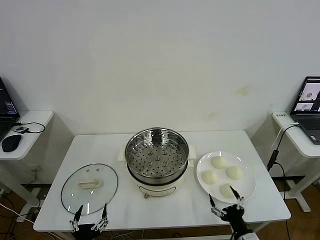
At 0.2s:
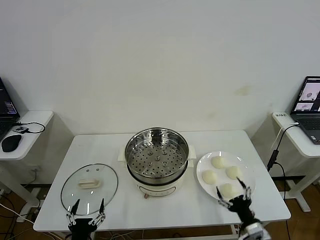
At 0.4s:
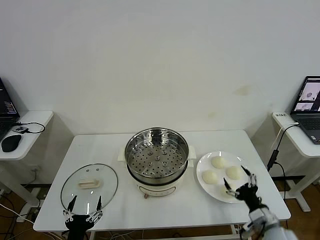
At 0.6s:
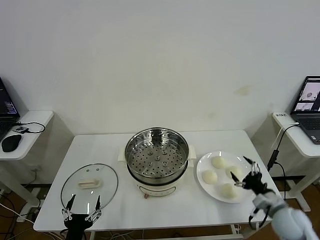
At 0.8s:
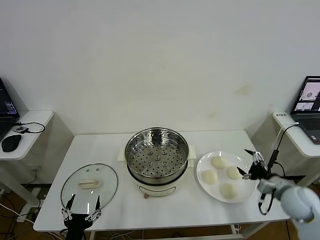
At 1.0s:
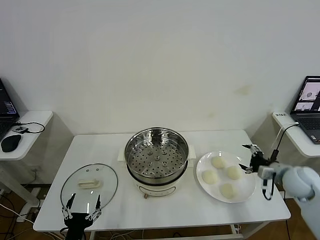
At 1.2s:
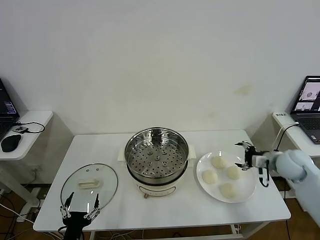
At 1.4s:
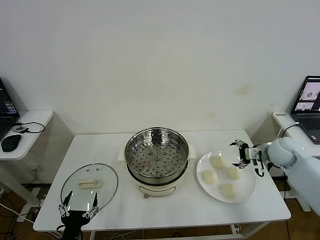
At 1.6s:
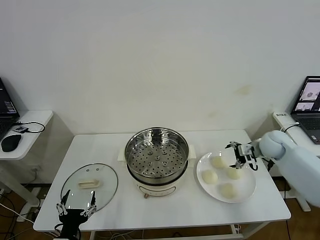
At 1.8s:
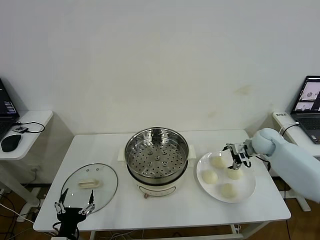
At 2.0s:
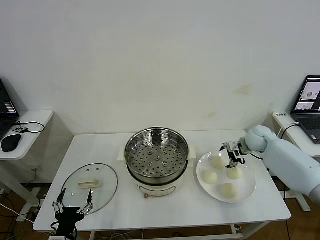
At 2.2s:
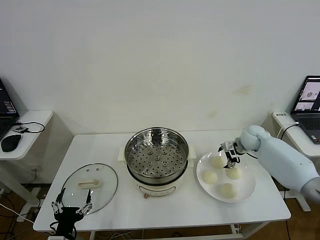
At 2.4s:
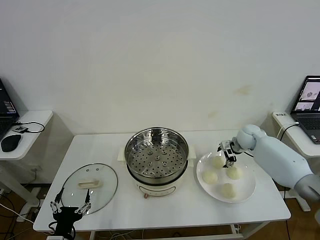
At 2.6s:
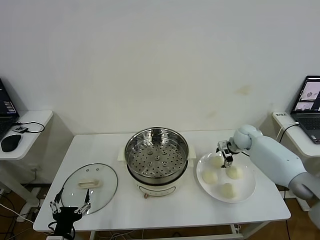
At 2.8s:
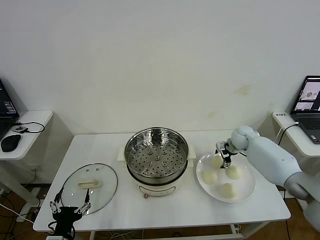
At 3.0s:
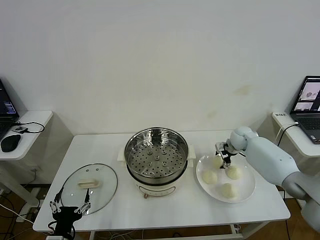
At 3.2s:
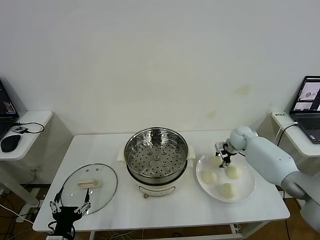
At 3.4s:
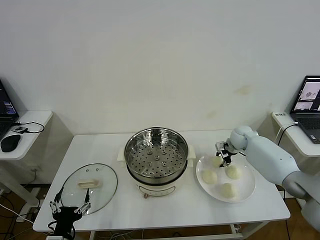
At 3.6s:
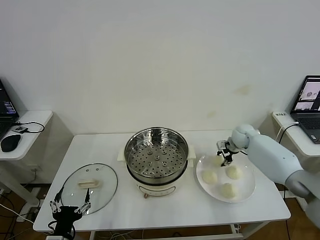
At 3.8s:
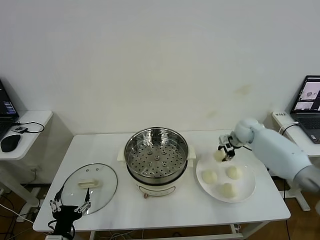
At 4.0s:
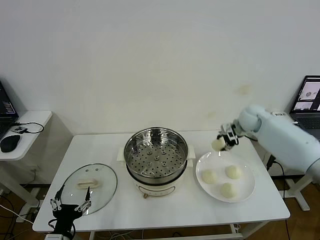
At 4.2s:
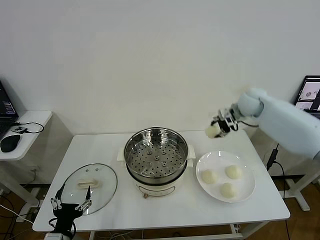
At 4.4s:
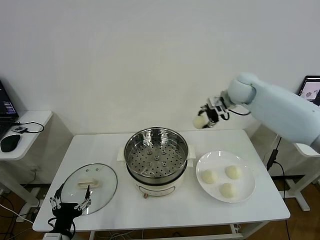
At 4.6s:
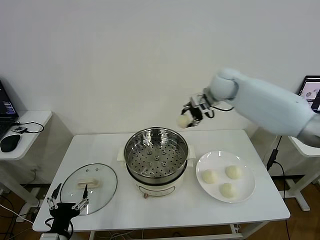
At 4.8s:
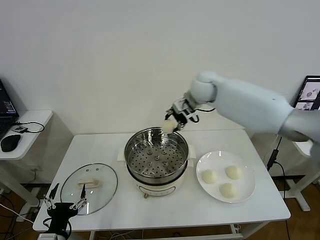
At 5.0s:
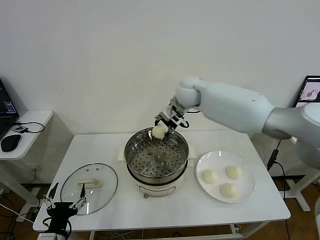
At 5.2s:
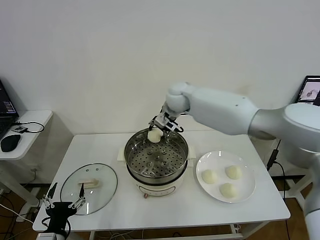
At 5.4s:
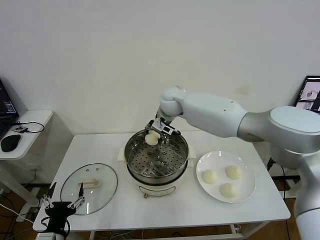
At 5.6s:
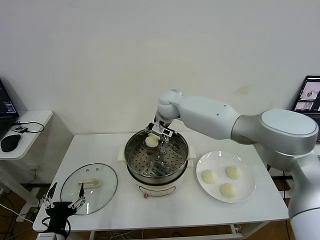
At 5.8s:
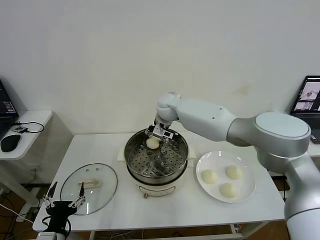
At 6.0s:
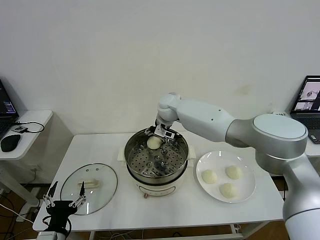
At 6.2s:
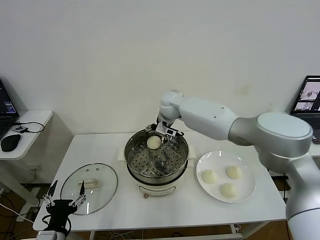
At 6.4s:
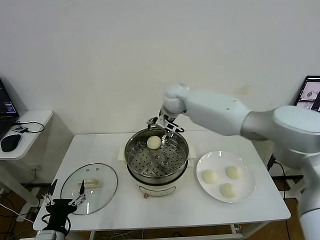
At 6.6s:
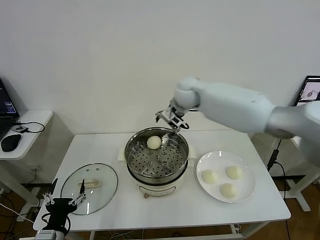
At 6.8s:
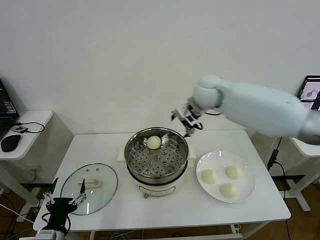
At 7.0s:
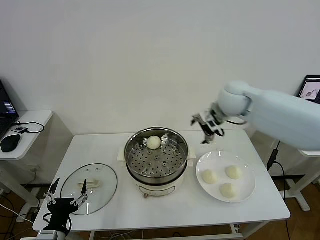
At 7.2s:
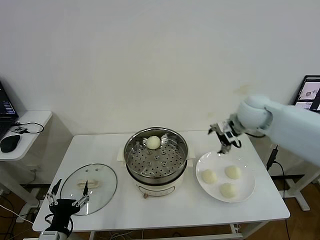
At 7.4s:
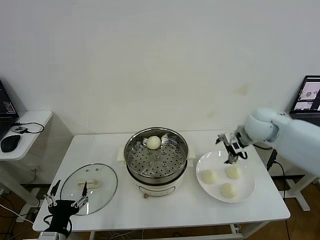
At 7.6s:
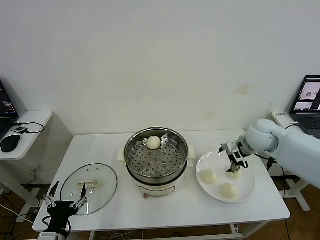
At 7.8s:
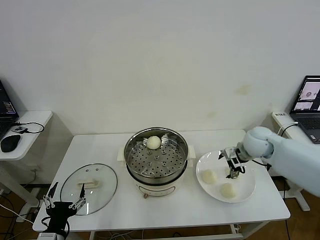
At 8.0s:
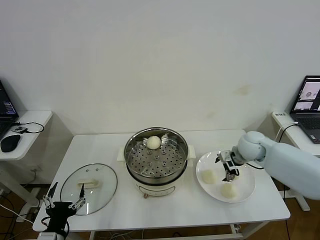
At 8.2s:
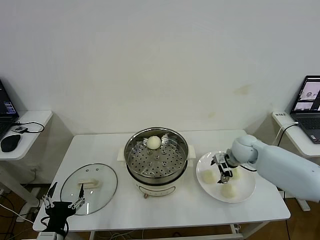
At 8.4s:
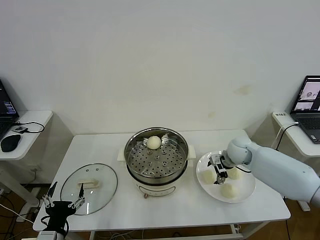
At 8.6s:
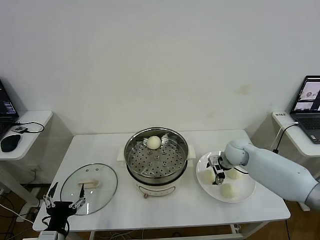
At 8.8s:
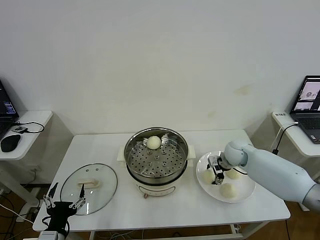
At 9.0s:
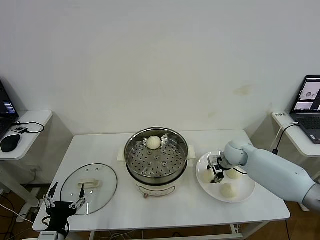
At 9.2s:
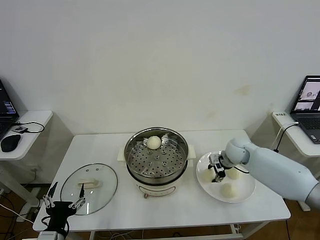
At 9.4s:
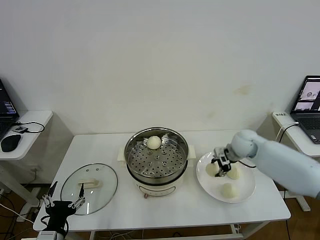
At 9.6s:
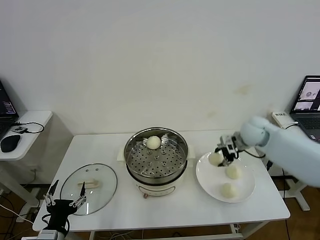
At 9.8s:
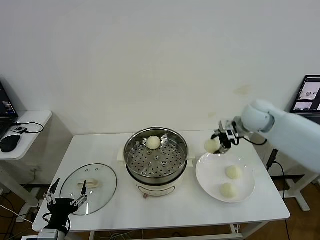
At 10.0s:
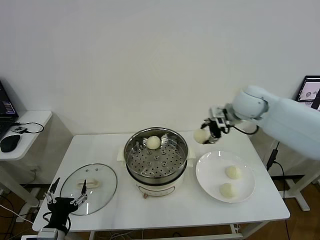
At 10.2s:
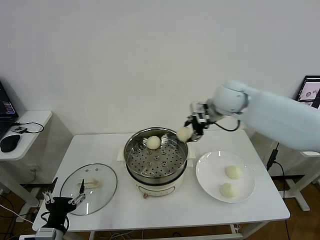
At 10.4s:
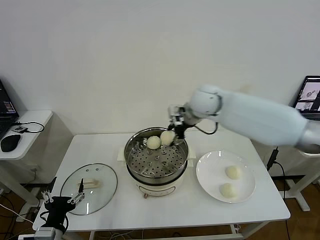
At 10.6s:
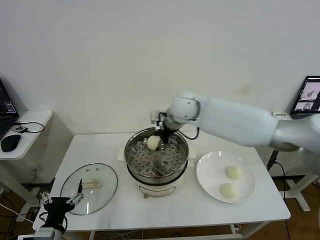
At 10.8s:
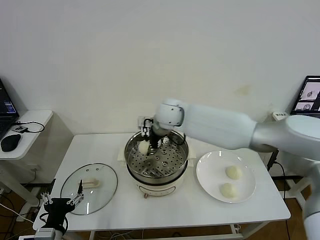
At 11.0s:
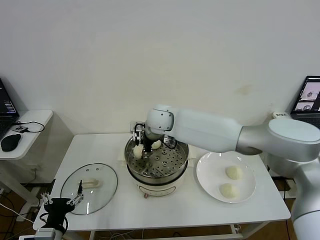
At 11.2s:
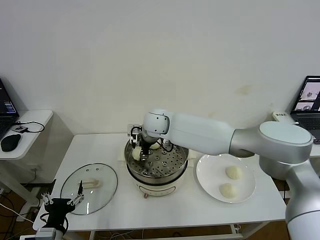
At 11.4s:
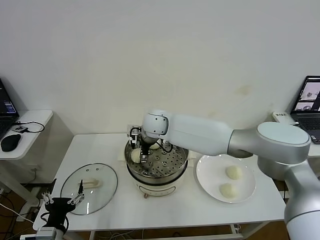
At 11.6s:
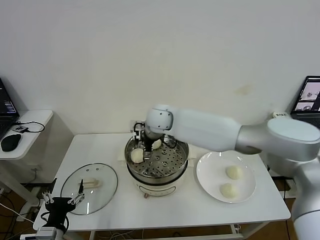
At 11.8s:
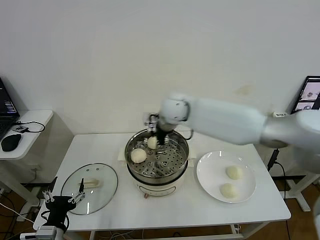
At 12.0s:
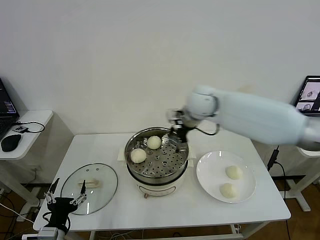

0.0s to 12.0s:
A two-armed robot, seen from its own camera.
Step, 0.0s to 3.2s: Grasp the baozi in the plate with right gripper.
Step, 3.4s to 6.0s: Place the baozi on the steamer with right gripper.
Step, 6.2s to 9.0s: Grasp the baozi in the plate with right gripper.
Step, 9.2s to 11.4s: Place the baozi on the steamer with right gripper.
1.6s to 3.0s: The right gripper travels forward, to the left and downward by about 10 cm, and closes.
3.0s to 4.4s: The right gripper shifts roughly 25 cm upward and to the left.
4.4s to 6.0s: The right gripper is displaced to the left and downward by some 20 cm, and opens up.
6.0s to 7.6s: The right gripper goes about 30 cm to the right and backward.
7.6s to 9.0s: The right gripper shifts some 10 cm downward, and closes its fingers.
9.0s to 10.4s: The right gripper goes approximately 30 cm upward and to the left.
10.4s to 12.0s: The right gripper is displaced to the right by about 5 cm, and opens up.

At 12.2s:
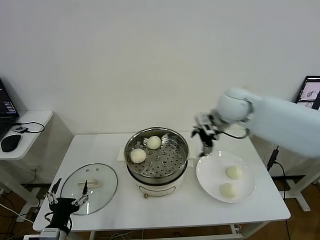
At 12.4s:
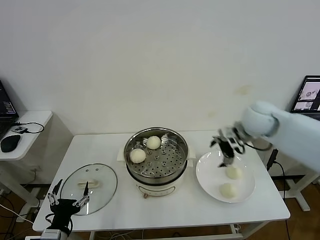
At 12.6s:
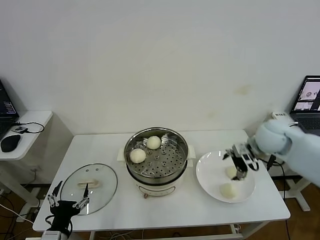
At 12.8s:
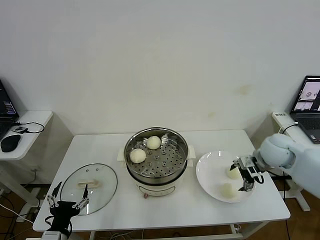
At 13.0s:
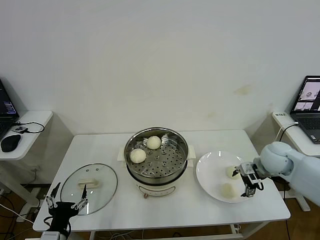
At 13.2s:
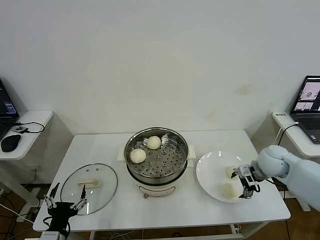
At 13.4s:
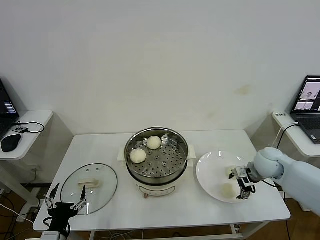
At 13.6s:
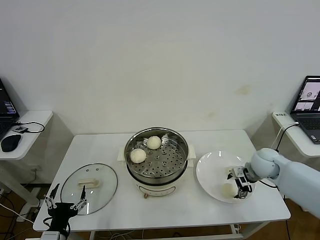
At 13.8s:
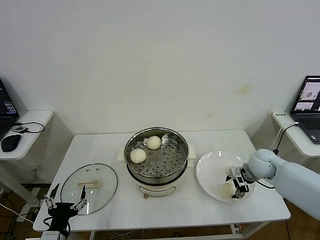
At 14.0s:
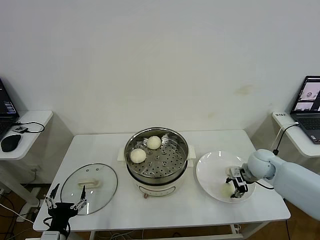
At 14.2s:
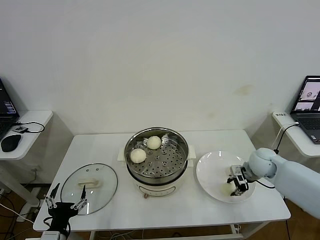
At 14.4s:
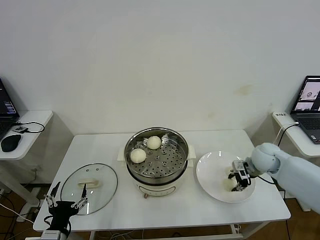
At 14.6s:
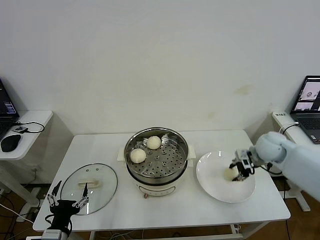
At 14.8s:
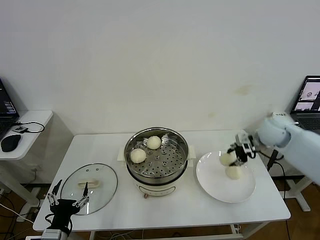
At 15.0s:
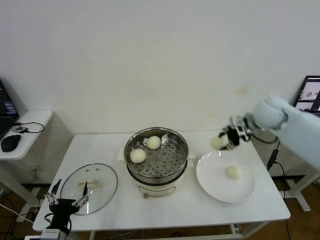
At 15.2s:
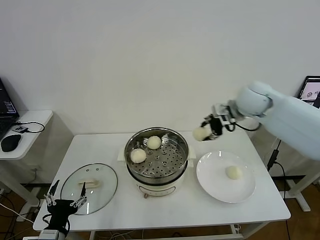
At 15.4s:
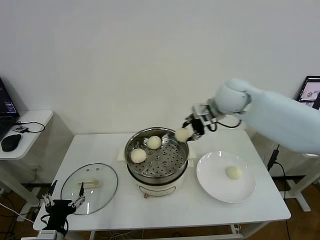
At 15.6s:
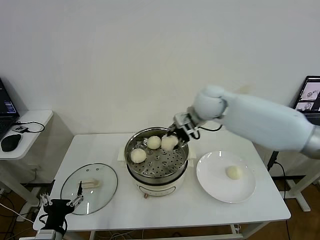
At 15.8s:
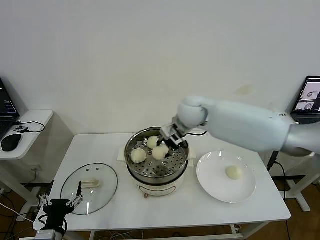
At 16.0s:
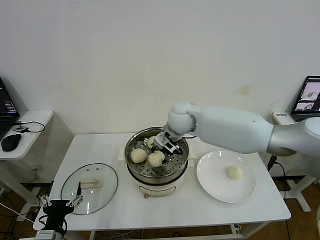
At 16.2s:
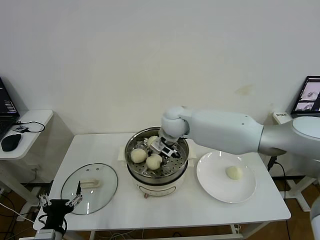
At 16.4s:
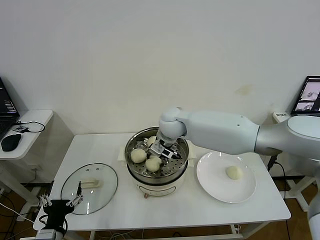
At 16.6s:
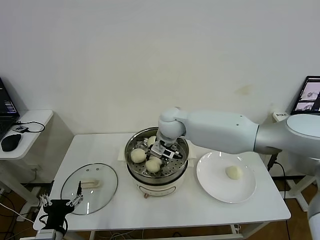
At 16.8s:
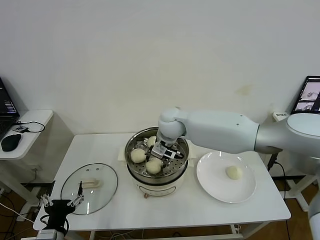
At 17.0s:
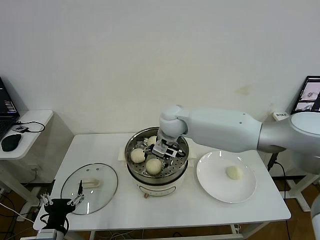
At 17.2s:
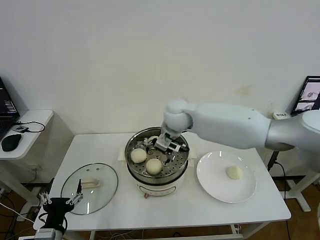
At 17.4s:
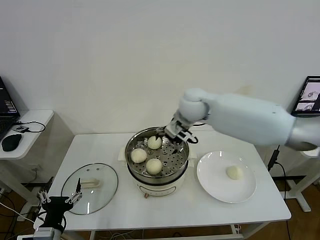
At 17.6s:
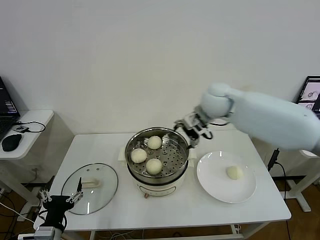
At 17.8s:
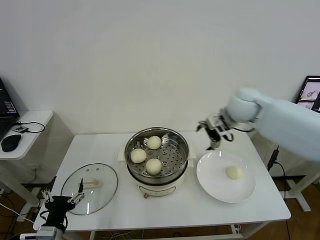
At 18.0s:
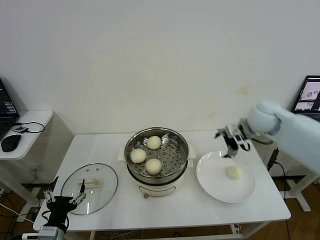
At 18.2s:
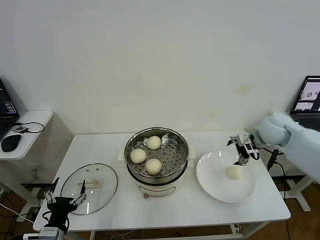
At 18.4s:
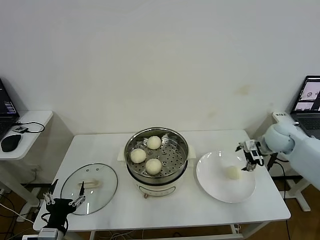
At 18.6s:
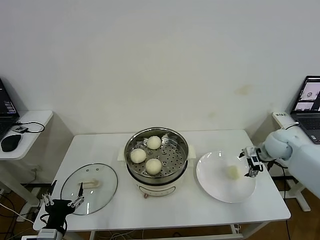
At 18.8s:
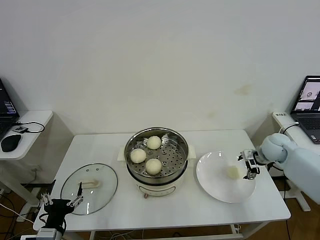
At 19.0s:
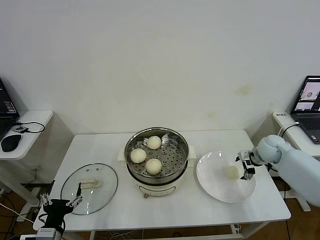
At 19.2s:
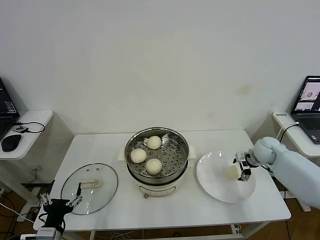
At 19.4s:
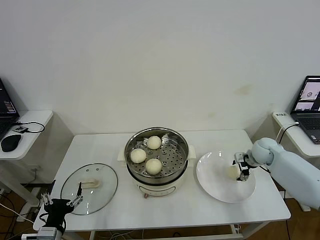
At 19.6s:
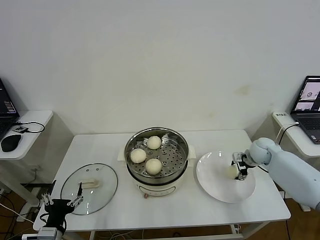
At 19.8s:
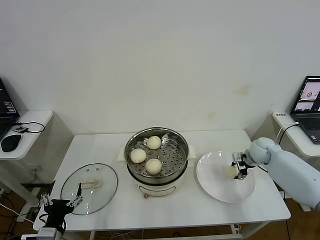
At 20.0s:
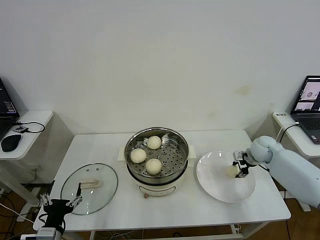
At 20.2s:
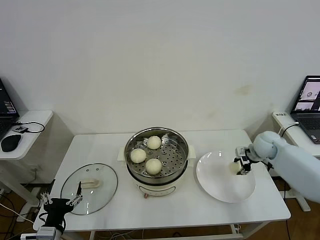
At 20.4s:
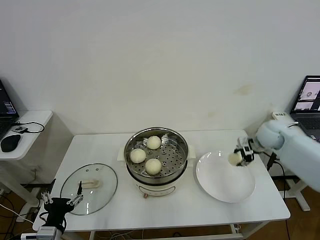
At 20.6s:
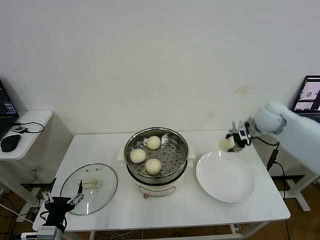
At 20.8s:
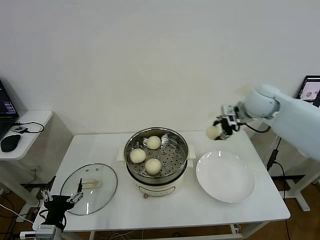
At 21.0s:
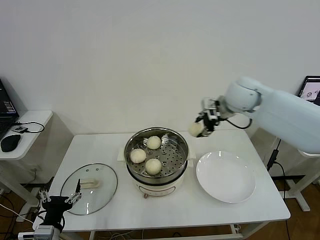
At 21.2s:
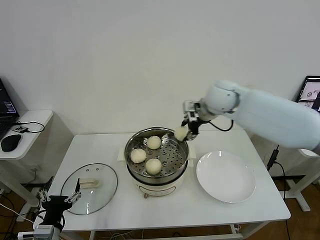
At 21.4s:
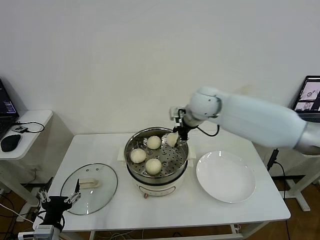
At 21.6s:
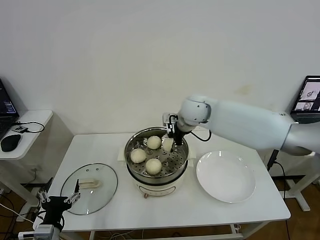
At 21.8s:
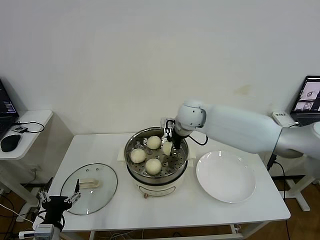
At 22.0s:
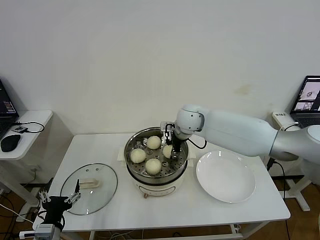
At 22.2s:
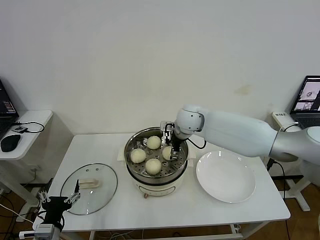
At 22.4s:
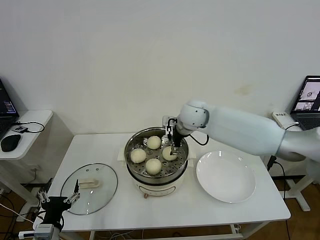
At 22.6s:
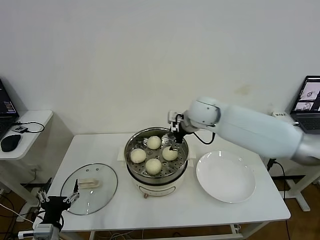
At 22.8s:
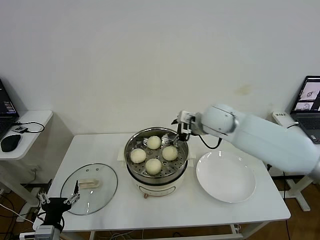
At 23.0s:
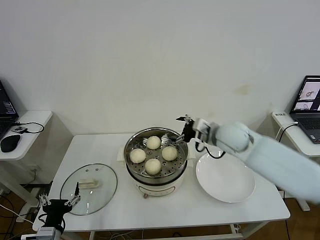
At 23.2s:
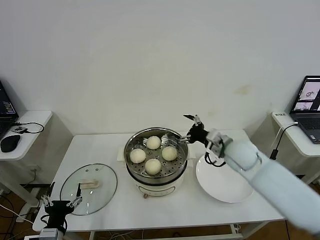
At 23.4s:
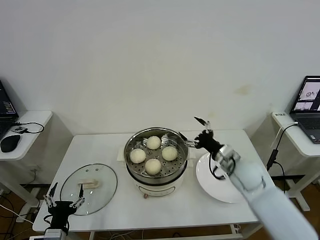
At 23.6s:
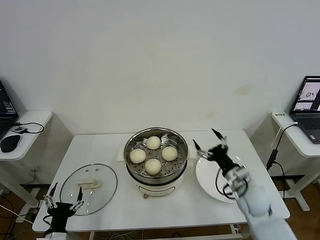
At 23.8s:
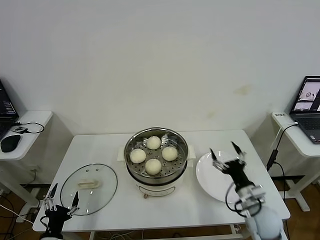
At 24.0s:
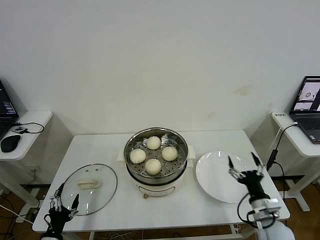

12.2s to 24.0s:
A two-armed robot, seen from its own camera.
Step, 12.2s to 14.0s: Grasp the baozi in the plate with right gripper.
Step, 14.2s to 17.0s: Place the baozi on the steamer with right gripper.
Step, 17.4s to 20.0s: Grasp the baozi in the plate with right gripper.
Step, 20.2s to 22.4s: Place the baozi on the steamer with right gripper.
12.2s to 13.6s: The right gripper travels downward and to the right by about 20 cm.
13.6s to 15.2s: The right gripper moves upward and to the left, roughly 25 cm, and closes its fingers.
15.2s to 16.6s: The right gripper moves to the left and downward, some 25 cm.
16.6s to 18.2s: The right gripper goes roughly 35 cm to the right, and opens its fingers.
18.2s to 19.6s: The right gripper heads downward, covering approximately 15 cm, and closes its fingers.
19.6s to 21.0s: The right gripper heads upward and to the left, covering some 30 cm, and closes up.
21.0s to 22.6s: The right gripper travels to the left and downward by about 10 cm, and opens.
22.6s to 24.0s: The left gripper goes some 5 cm downward; the right gripper is displaced backward, downward and to the right by some 40 cm.
